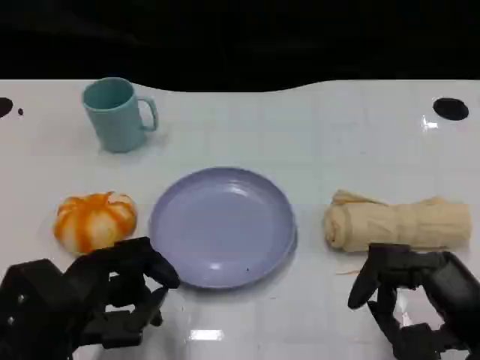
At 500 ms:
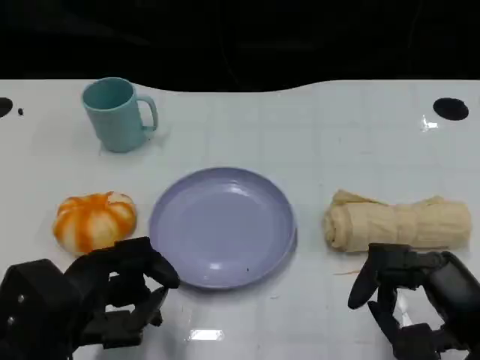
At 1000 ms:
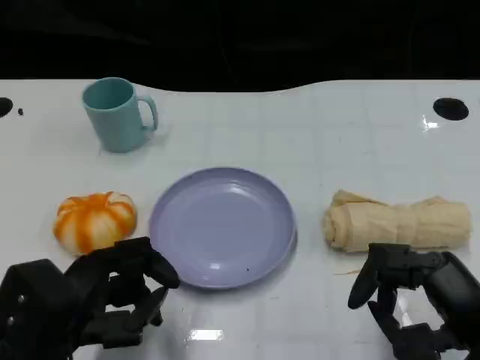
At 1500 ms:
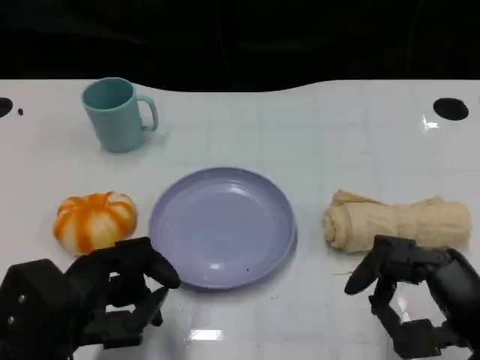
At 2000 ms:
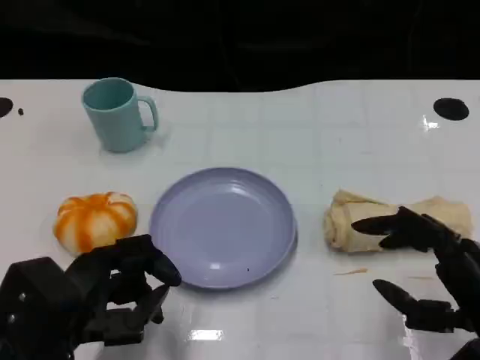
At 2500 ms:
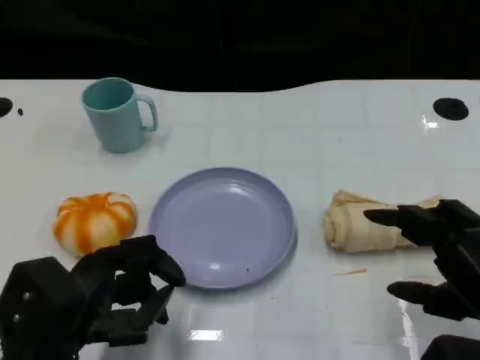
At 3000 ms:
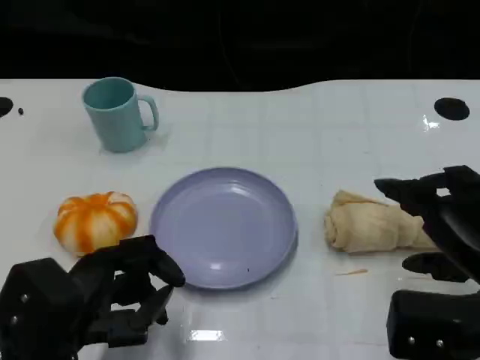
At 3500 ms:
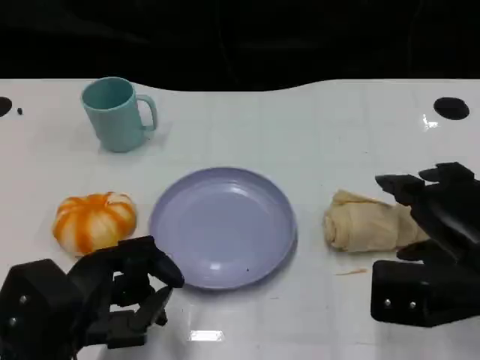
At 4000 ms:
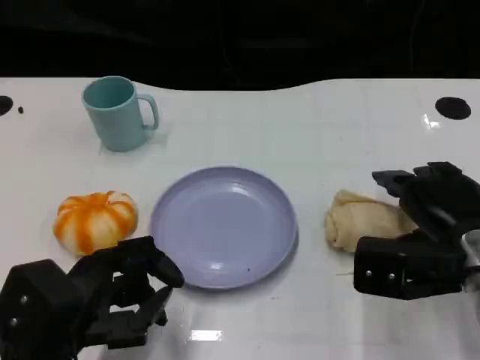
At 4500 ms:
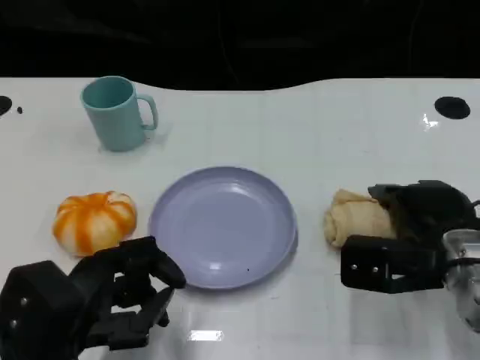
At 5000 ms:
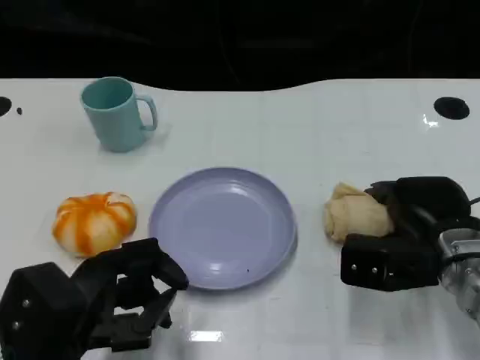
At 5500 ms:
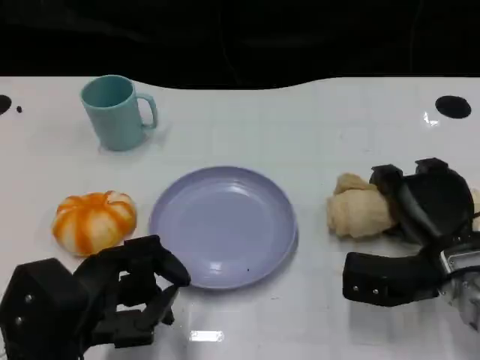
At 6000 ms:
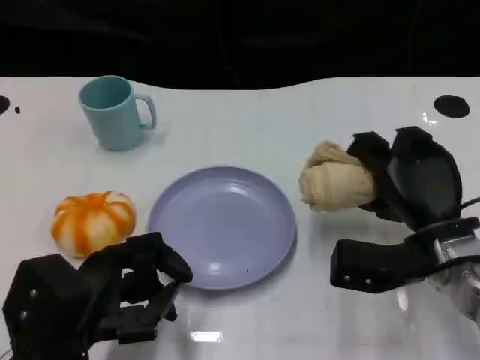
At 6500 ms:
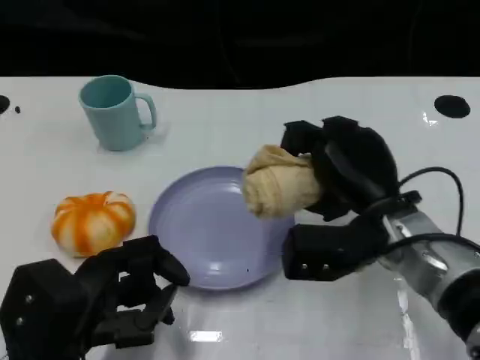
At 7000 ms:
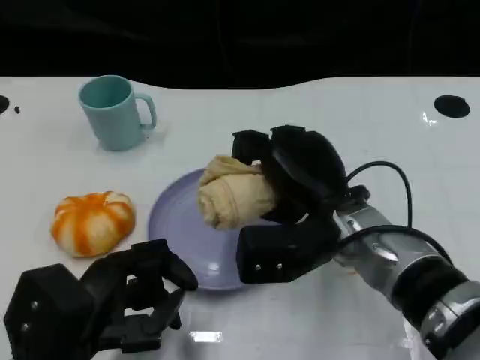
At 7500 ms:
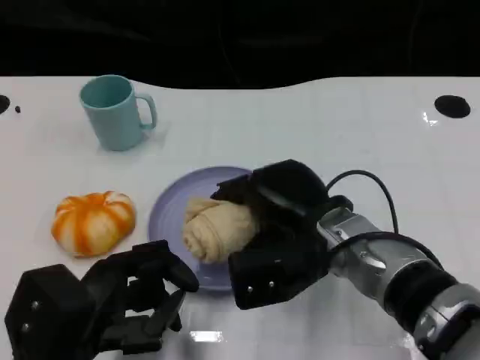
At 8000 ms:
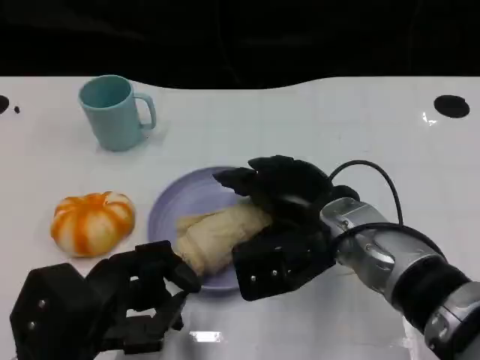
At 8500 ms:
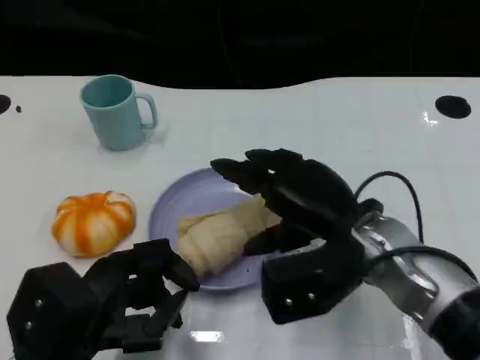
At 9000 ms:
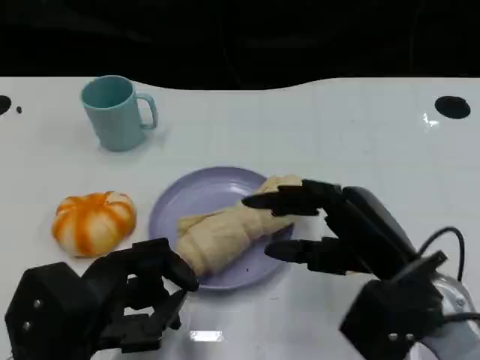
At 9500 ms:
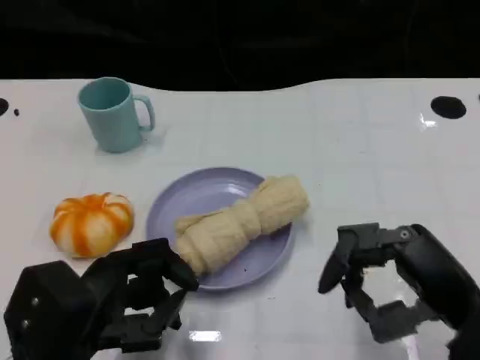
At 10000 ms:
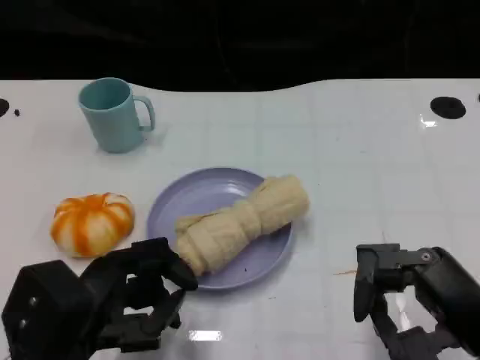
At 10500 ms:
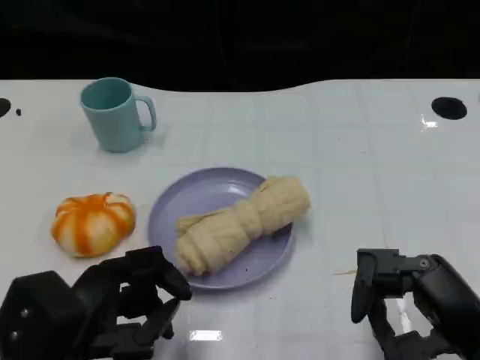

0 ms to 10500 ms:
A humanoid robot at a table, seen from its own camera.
Task of the whole recording: Grasp the towel on the left side of the plate with the left hand and place it into the plate.
2000 ms to 4000 ms: The right hand moves forward, some 10 cm.
4000 ms to 6500 ms: The right hand moves to the left, about 10 cm.
8500 ms to 10500 ms: The right hand goes approximately 15 cm backward and to the right.
